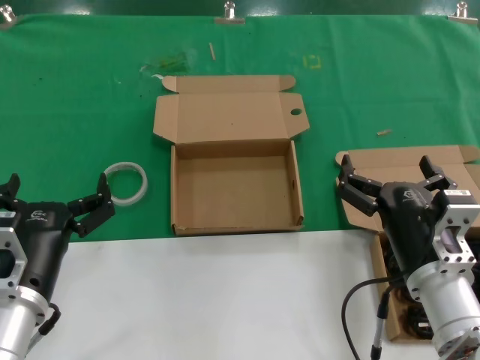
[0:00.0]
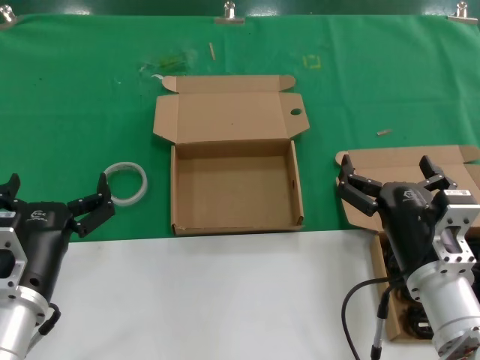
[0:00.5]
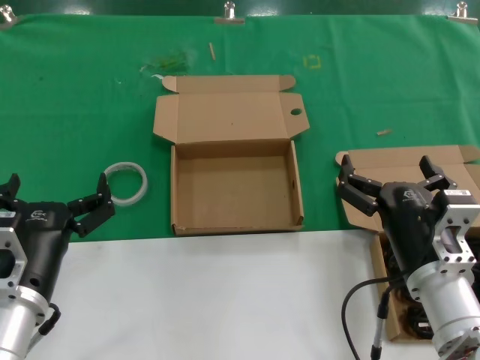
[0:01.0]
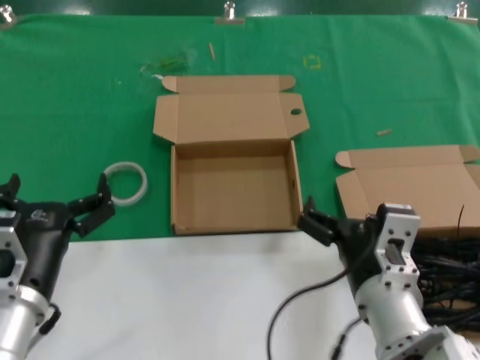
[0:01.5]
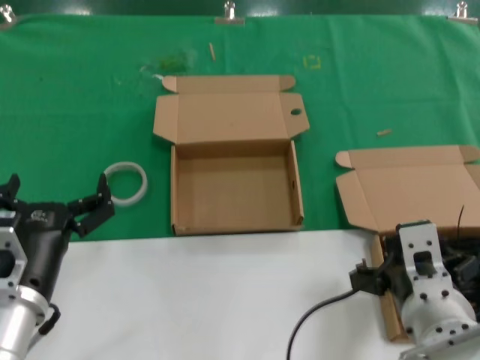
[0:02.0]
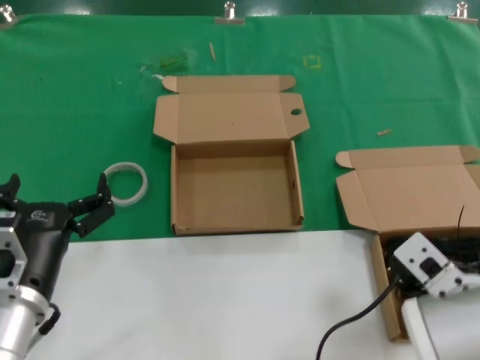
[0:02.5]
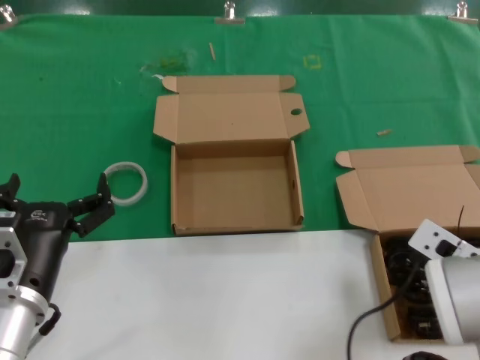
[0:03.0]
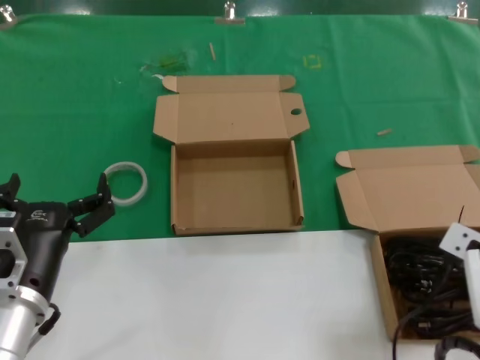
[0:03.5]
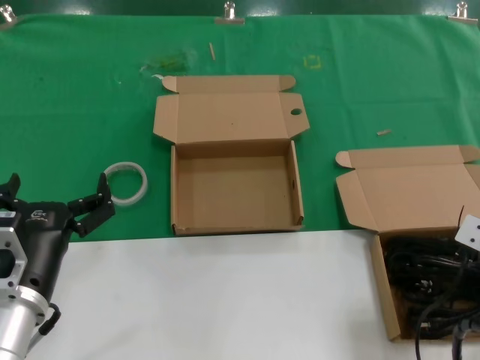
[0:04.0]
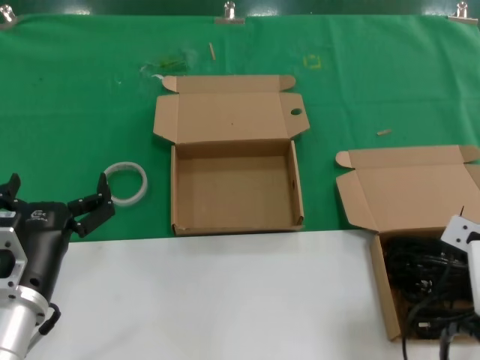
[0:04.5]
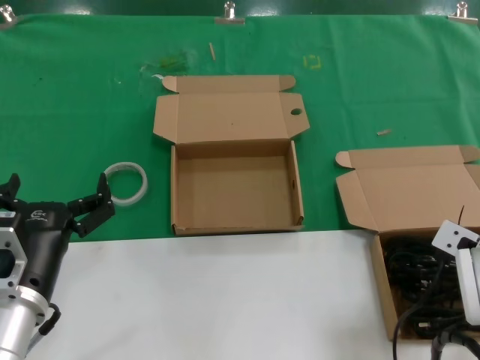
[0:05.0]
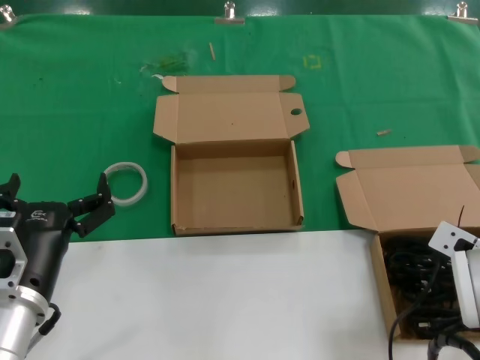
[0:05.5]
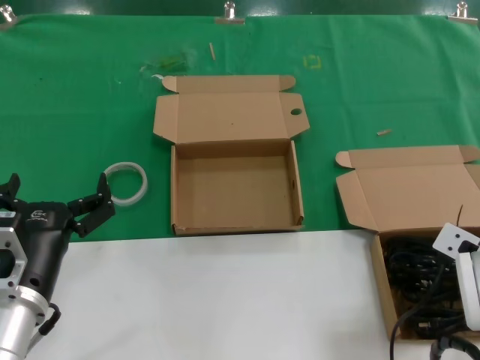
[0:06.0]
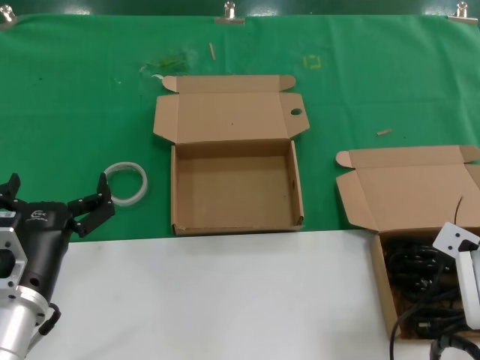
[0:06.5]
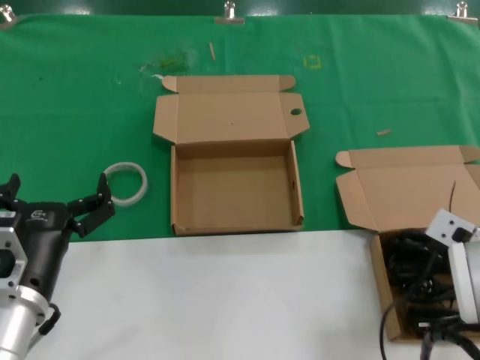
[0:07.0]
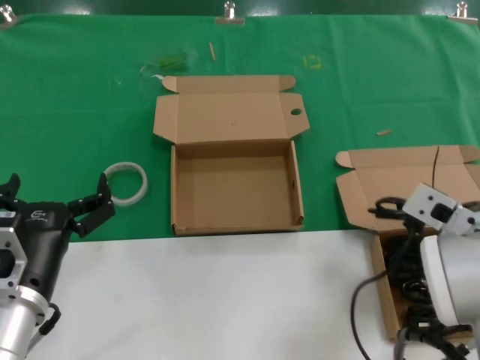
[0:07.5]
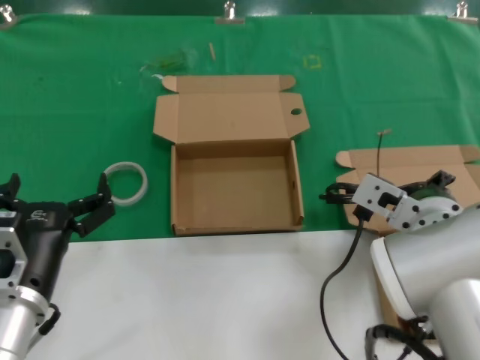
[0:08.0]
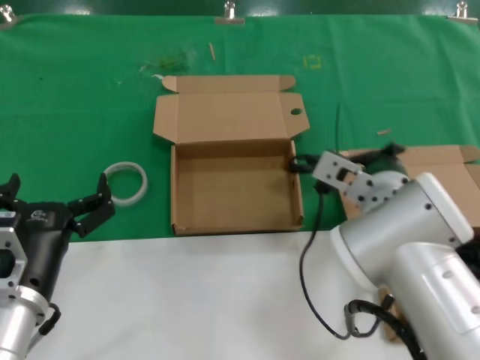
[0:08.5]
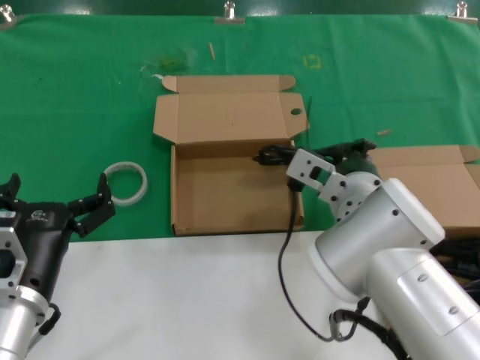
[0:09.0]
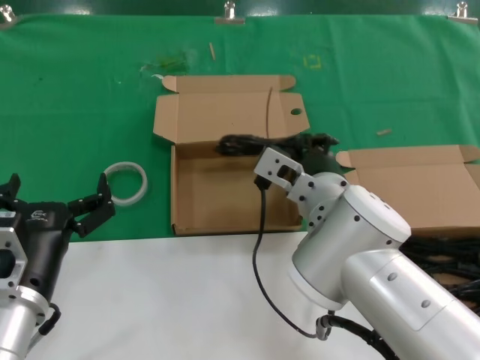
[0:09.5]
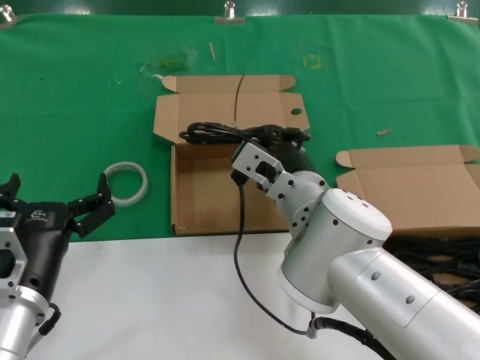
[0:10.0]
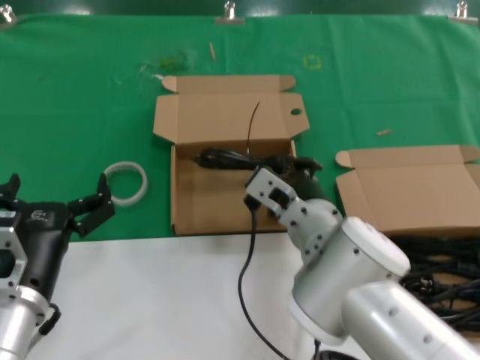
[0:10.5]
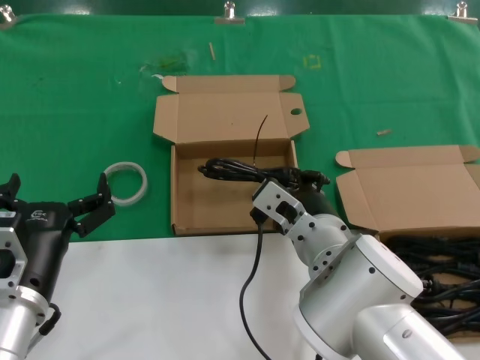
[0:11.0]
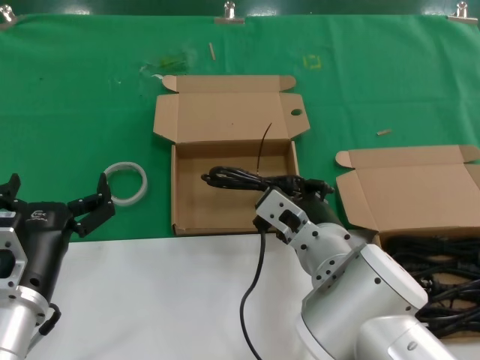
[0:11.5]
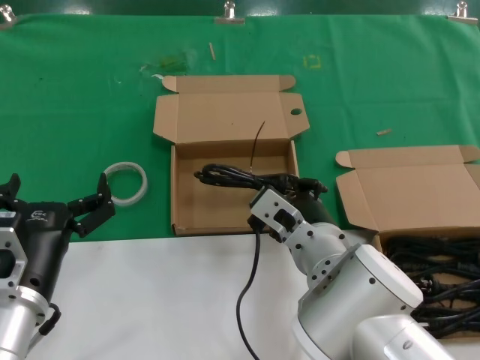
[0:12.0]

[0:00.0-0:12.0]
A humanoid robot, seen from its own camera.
Task of the whole recording: take the parts from the box containing them and put them into an empty box.
Step, 0.0 to 6.5 s: Grasp the data cable.
0.0 to 2.0 s: The right hand changes place by about 10 cm.
2.0 to 4.0 s: The right hand travels to the right and forward by about 15 cm.
4.0 to 6.0 s: The hands make only small movements.
6.0 to 8.0 s: The right hand travels to the left and upward by approximately 10 cm.
8.0 to 10.0 s: The right hand shifts approximately 15 cm to the left, forward and downward.
10.0 to 12.0 s: The right hand goes about 5 cm backward.

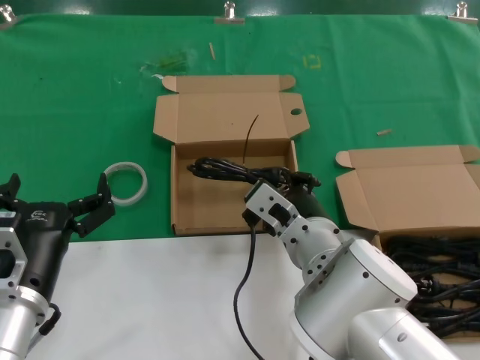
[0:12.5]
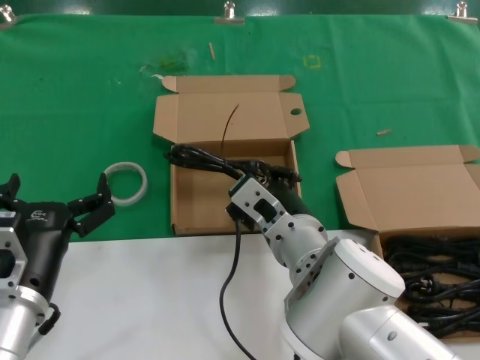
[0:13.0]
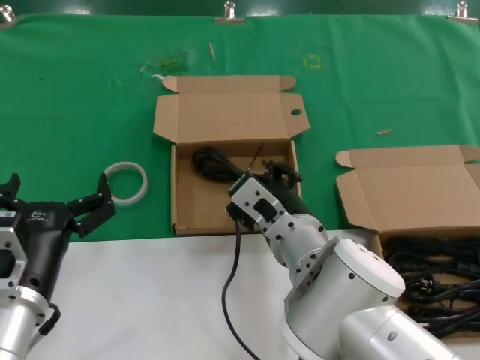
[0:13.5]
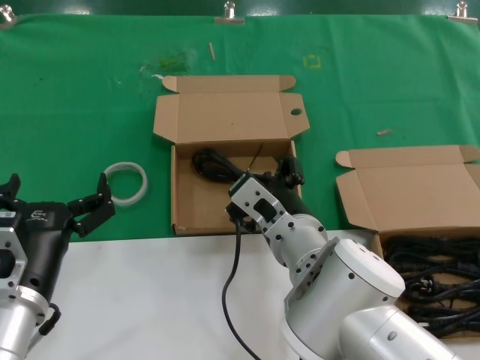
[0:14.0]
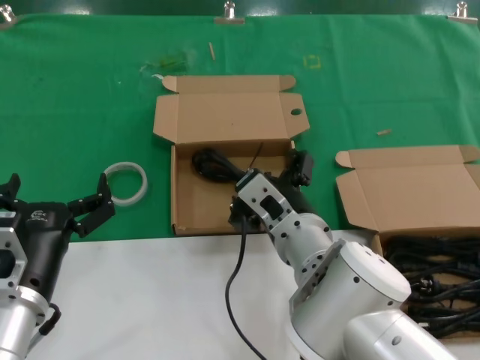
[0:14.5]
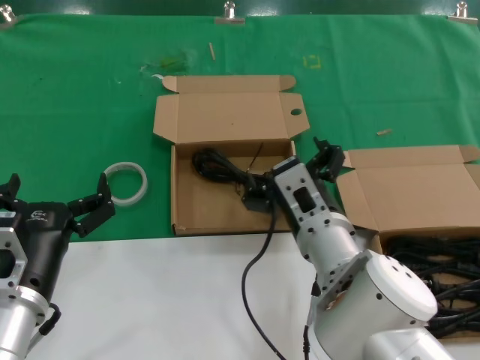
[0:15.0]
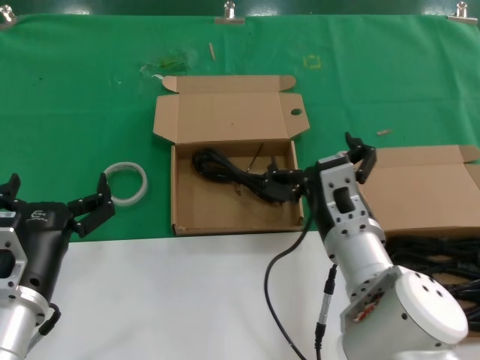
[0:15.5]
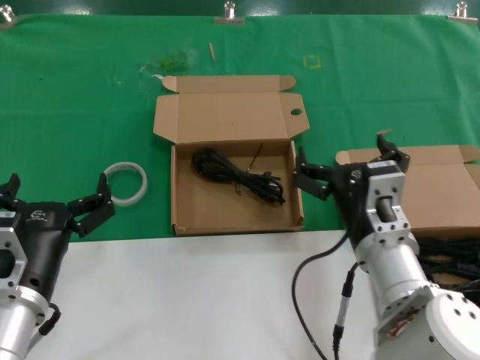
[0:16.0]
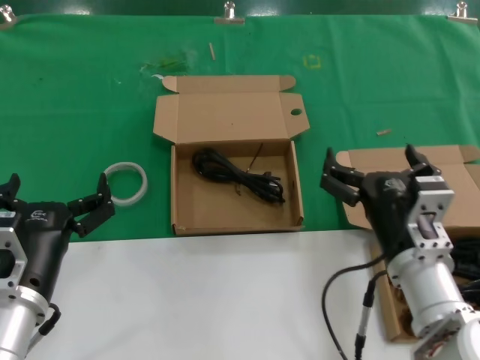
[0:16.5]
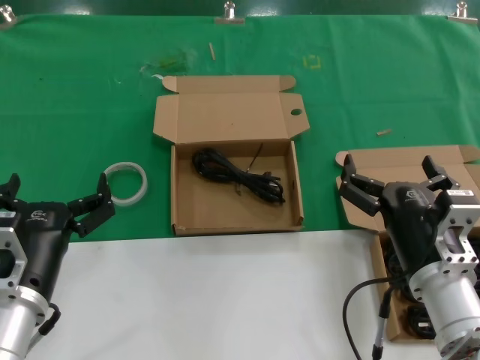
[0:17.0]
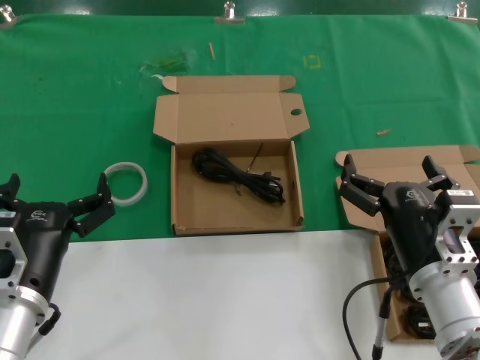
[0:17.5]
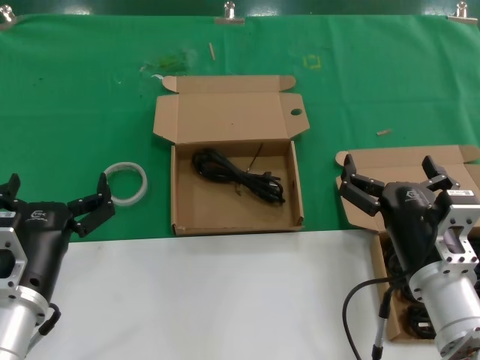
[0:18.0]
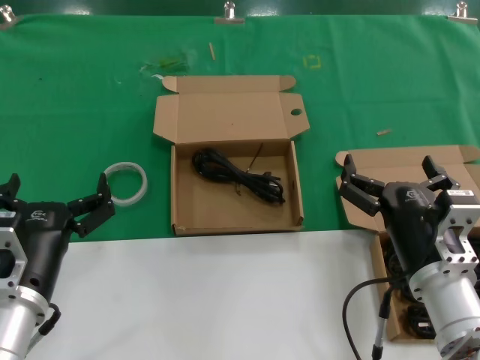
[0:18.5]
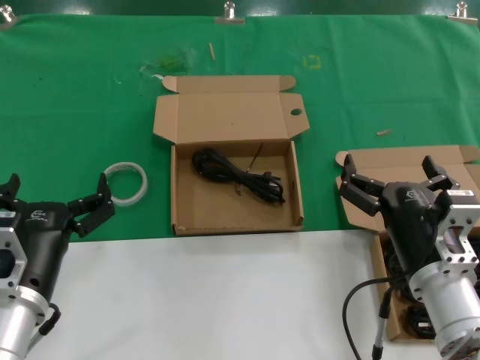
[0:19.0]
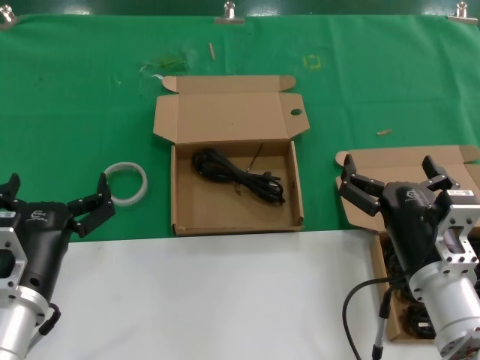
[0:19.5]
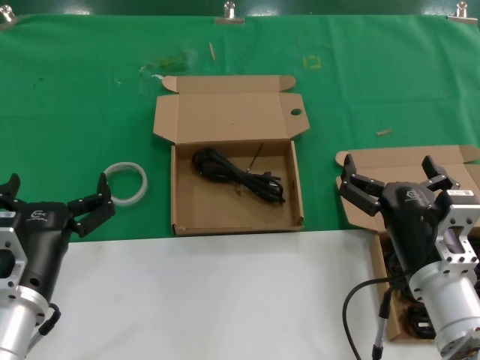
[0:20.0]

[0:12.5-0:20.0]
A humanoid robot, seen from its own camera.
Task of the whole recording: take the parts from the box containing them and put them into an empty box.
12.5 to 14.5 s: There are only small adjustments of the hands.
14.5 to 16.5 s: The right hand goes roughly 15 cm to the right and backward.
16.5 to 18.0 s: The hands stay close to where they were, moving slightly.
18.0 to 20.0 s: Both hands stay about where they are.

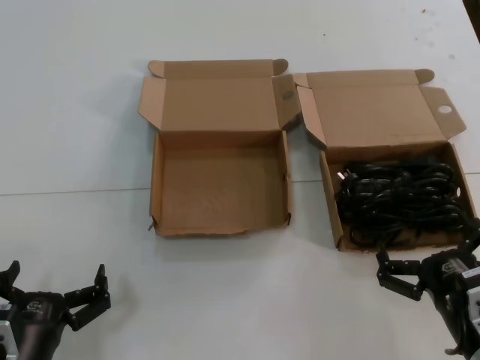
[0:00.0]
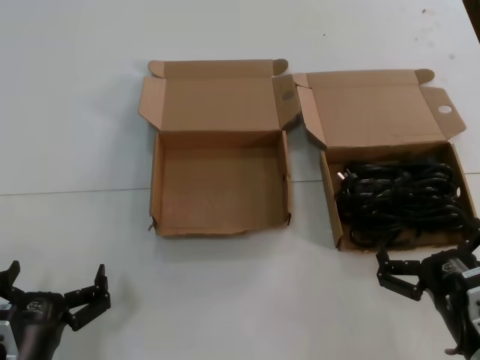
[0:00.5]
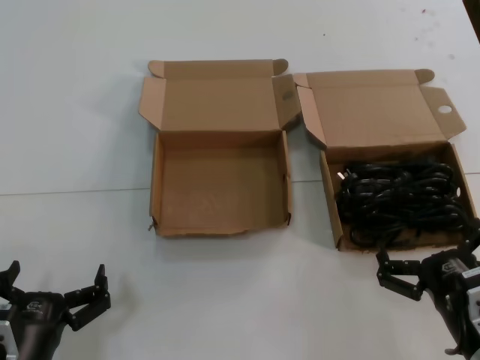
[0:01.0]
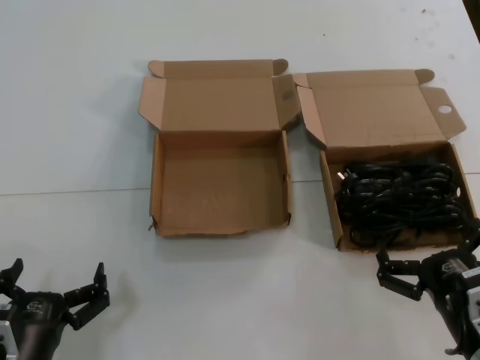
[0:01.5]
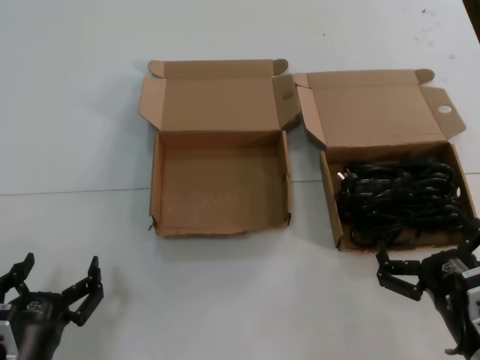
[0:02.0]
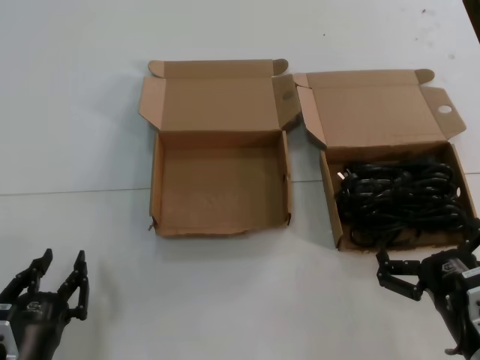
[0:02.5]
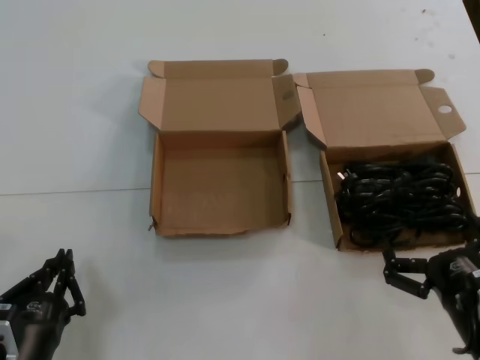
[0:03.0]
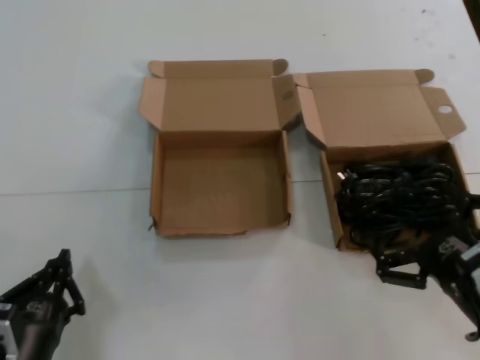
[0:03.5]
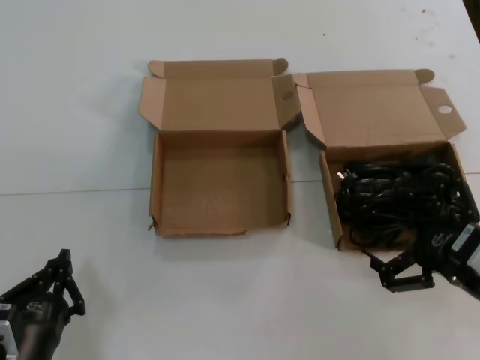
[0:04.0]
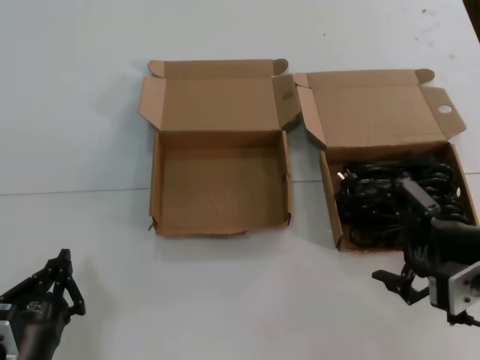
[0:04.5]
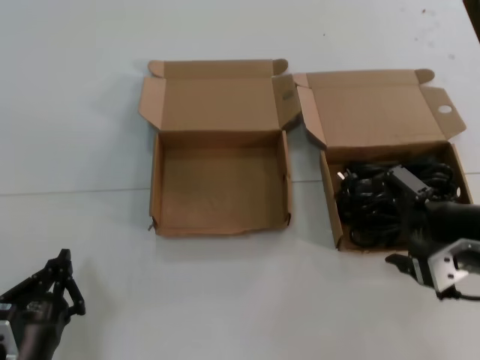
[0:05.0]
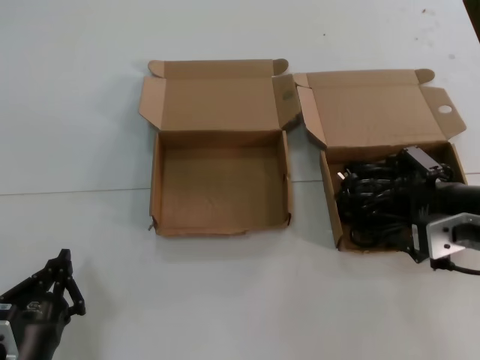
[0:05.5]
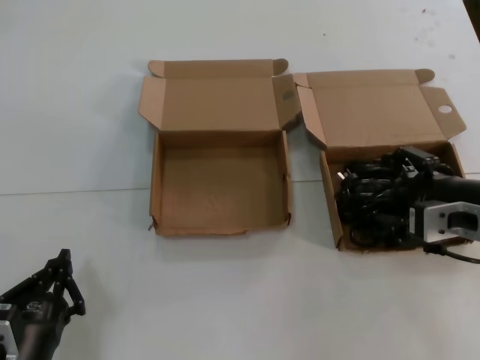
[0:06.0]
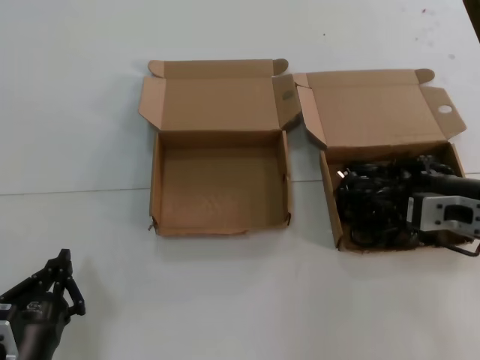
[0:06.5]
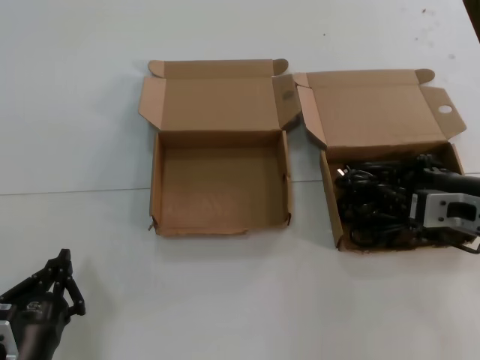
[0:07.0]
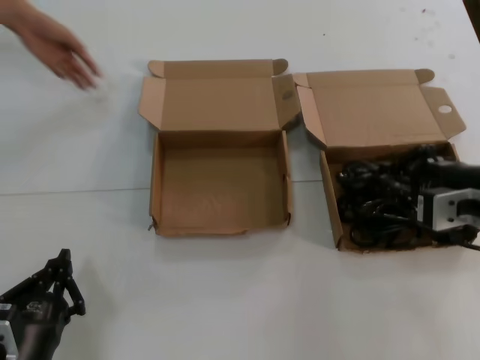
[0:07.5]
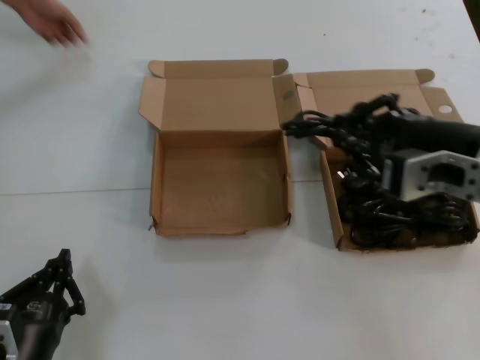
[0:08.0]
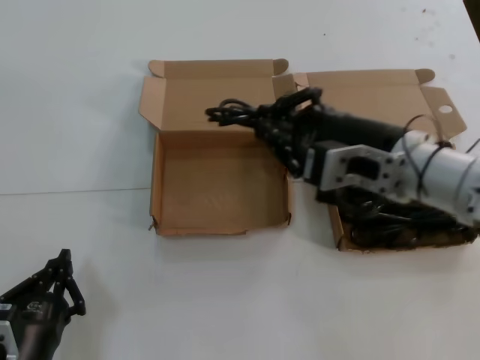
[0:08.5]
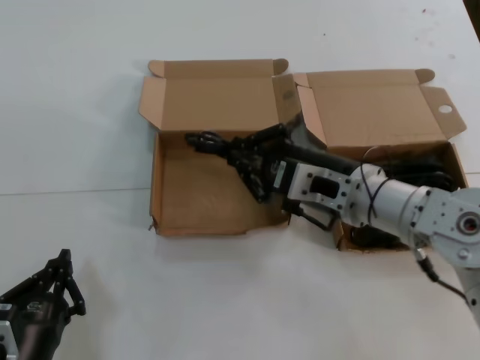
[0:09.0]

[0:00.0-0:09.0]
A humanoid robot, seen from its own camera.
Task of the whole recording: take the parts from the box containing them and put them into an empty box.
Step, 0.0 to 6.5 s: Grasp the data cable.
0.0 to 2.0 s: Neither hand changes place.
2.0 to 4.5 s: The right hand shifts approximately 15 cm upward.
4.5 to 7.0 s: The right hand travels forward by some 10 cm.
7.0 to 9.0 s: The right hand goes about 15 cm to the left.
